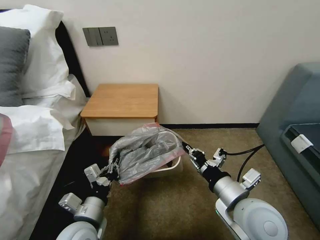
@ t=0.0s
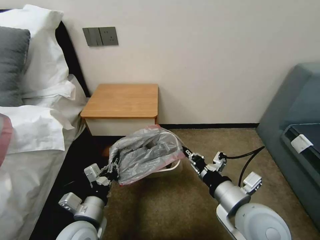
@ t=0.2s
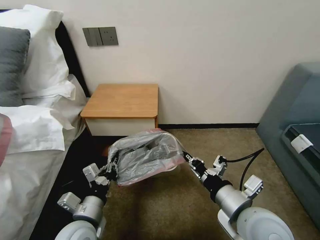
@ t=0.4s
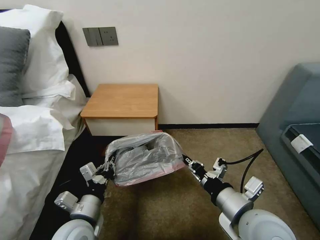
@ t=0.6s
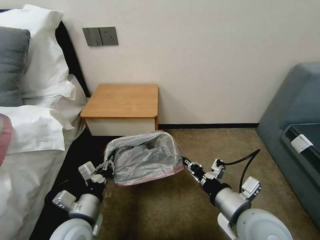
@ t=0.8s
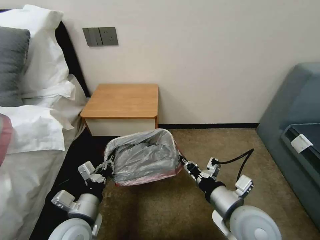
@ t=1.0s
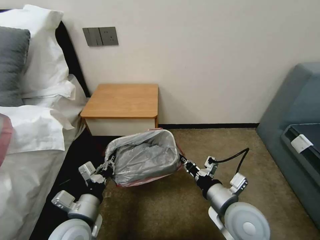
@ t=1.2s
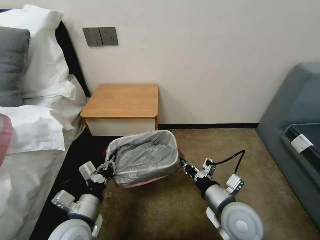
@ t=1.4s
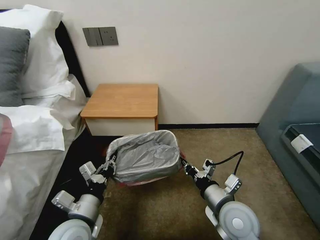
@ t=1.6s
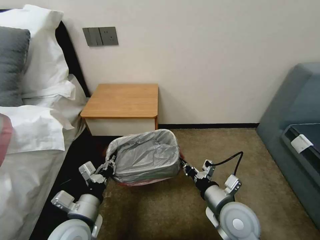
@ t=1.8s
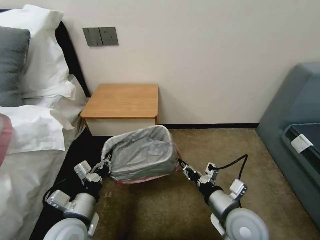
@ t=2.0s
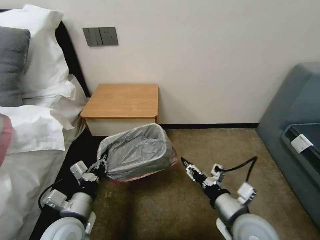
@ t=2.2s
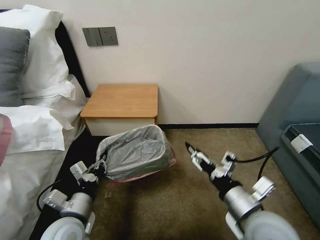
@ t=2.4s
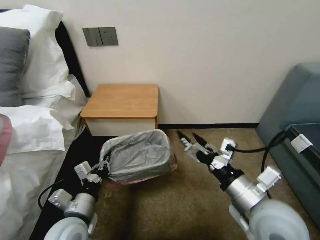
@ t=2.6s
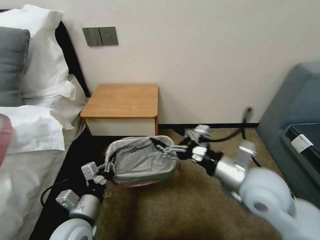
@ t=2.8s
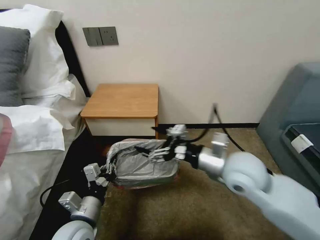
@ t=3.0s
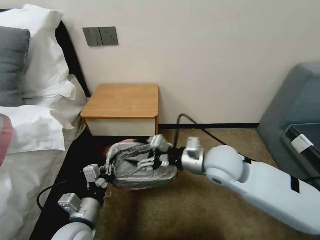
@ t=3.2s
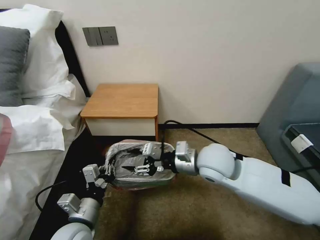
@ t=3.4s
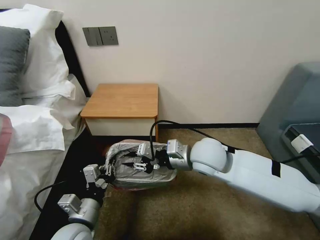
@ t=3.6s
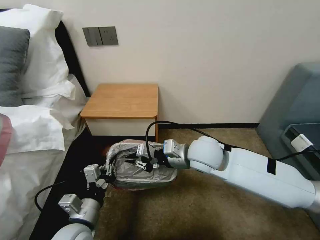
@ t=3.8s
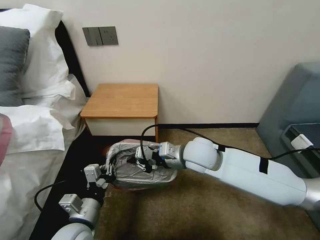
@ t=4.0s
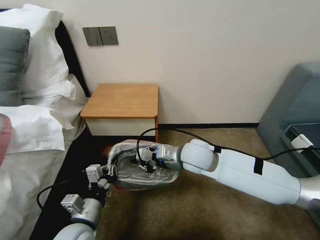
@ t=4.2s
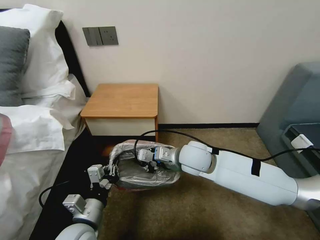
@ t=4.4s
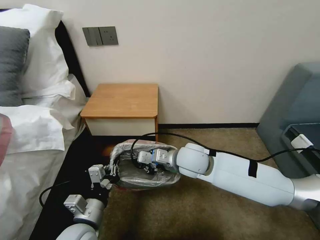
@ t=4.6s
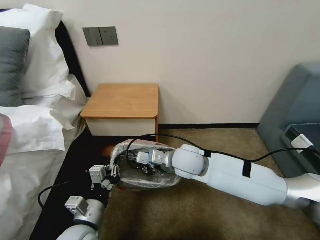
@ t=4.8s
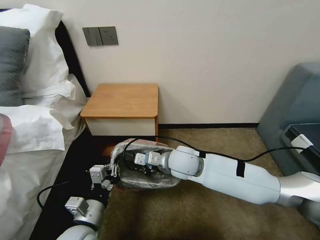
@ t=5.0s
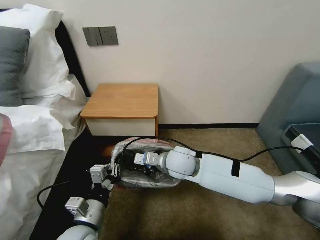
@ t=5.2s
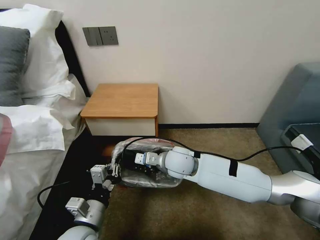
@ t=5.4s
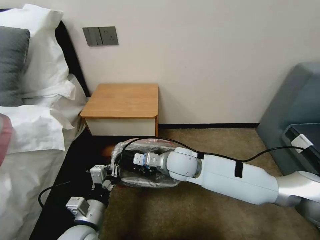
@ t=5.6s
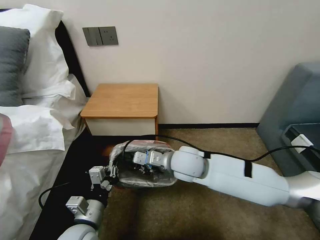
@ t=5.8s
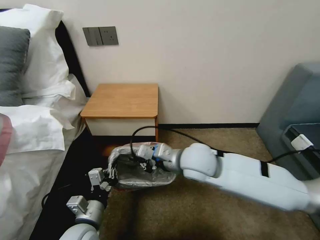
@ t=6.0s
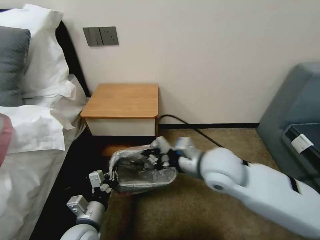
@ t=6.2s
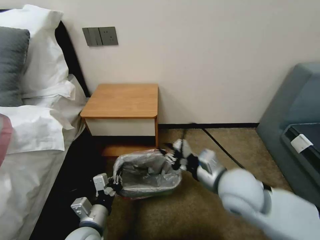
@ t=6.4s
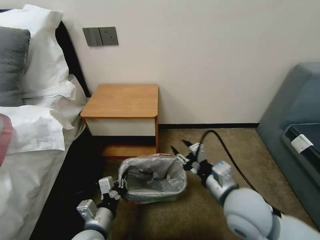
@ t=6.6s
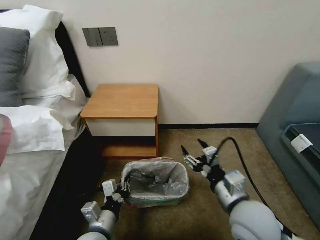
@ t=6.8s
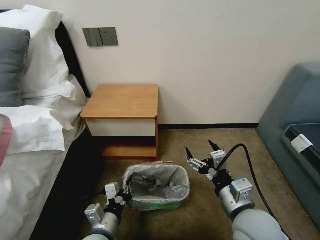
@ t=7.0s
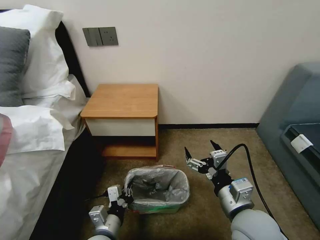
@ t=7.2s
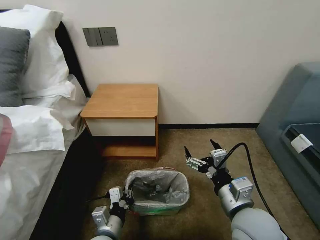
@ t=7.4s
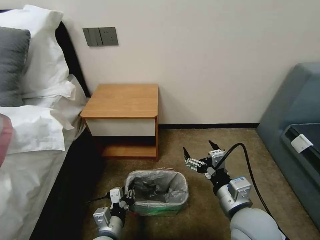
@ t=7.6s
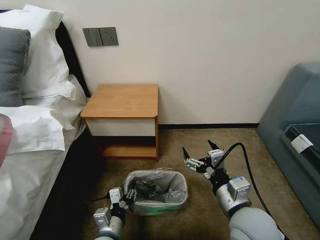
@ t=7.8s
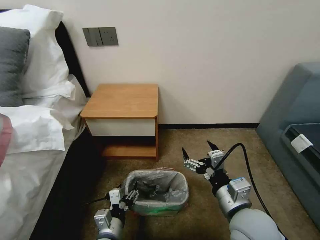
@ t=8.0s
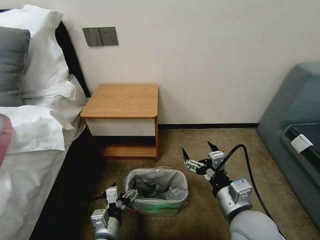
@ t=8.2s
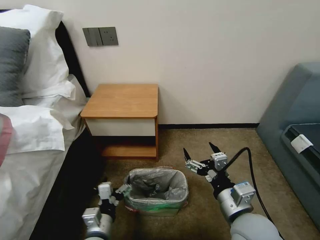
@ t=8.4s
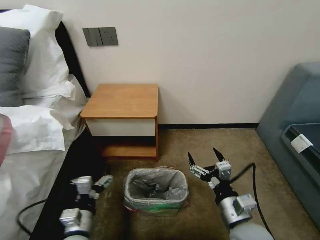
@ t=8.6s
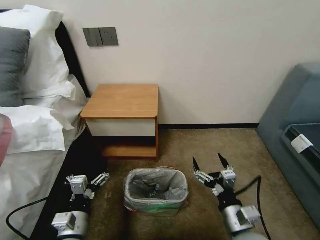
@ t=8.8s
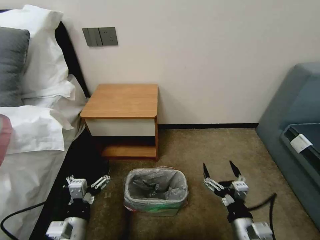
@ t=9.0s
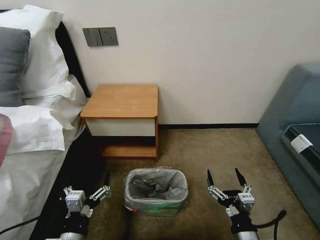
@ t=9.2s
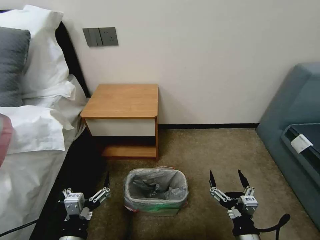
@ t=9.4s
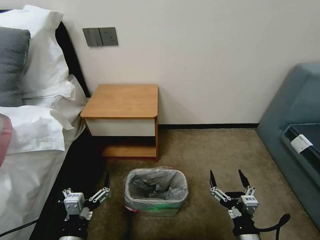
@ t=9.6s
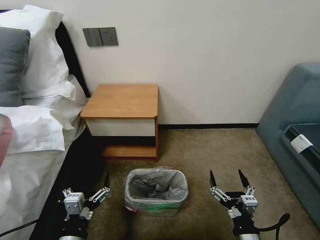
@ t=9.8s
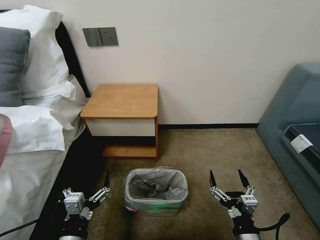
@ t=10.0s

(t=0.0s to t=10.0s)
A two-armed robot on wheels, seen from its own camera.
Task of the whole recording: Pick up the garbage bag from the table and place it over the trash can.
t=0.0s - t=1.4s: The right gripper goes about 5 cm downward.
t=1.4s - t=2.8s: The right gripper shifts some 10 cm upward, and opens its fingers.
t=2.8s - t=4.2s: The right gripper travels forward and to the left by some 15 cm, and closes up.
t=5.8s - t=7.2s: The left gripper moves about 5 cm, while the right gripper travels backward and to the right by approximately 20 cm, and opens up.
t=7.2s - t=8.6s: The left gripper goes about 5 cm to the left, and opens. Meanwhile the right gripper shifts by roughly 5 cm.
t=8.6s - t=10.0s: The right gripper moves backward and downward, some 10 cm. The left gripper shifts roughly 5 cm backward.

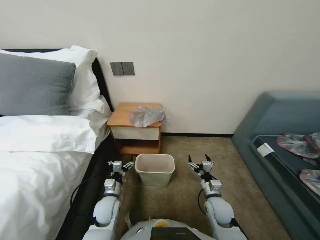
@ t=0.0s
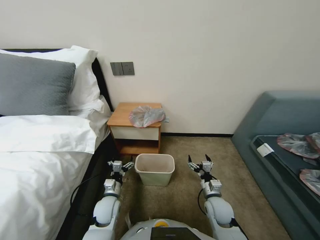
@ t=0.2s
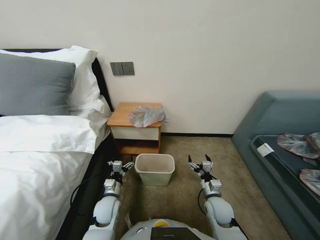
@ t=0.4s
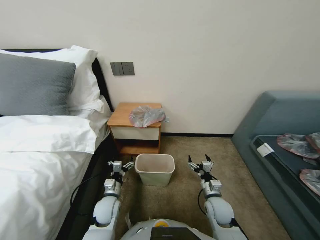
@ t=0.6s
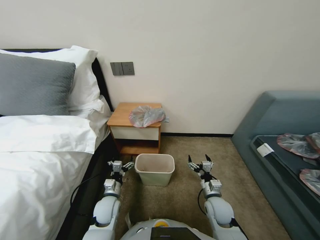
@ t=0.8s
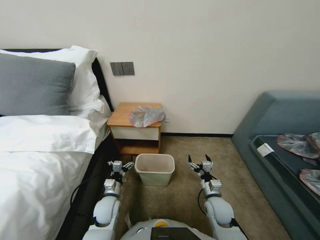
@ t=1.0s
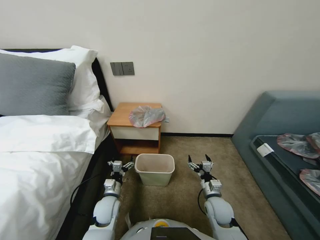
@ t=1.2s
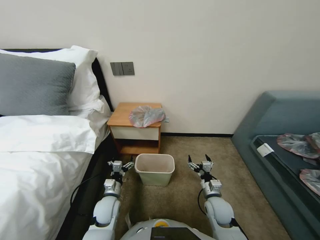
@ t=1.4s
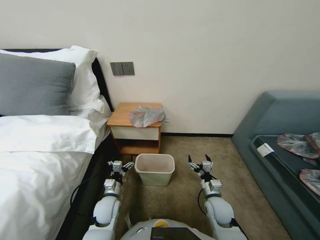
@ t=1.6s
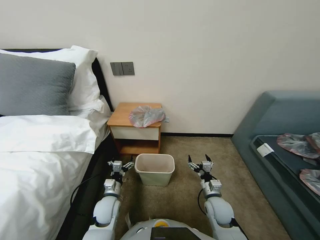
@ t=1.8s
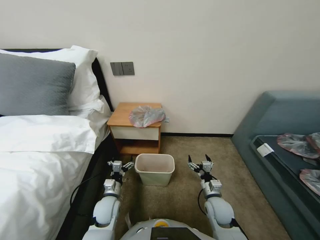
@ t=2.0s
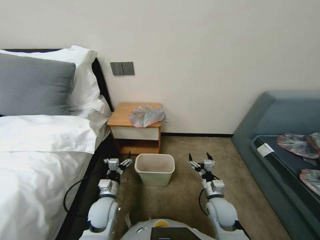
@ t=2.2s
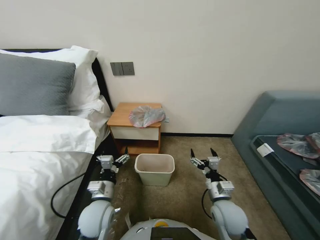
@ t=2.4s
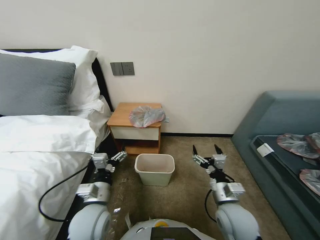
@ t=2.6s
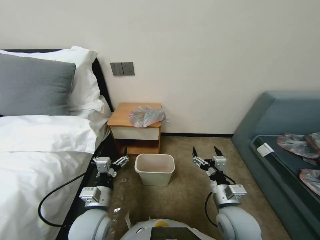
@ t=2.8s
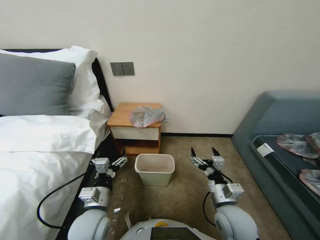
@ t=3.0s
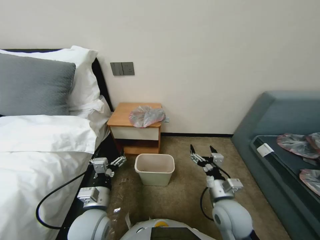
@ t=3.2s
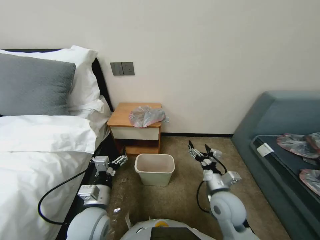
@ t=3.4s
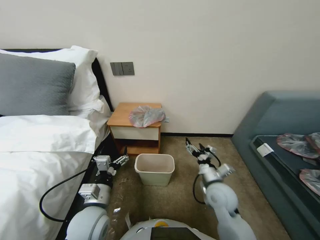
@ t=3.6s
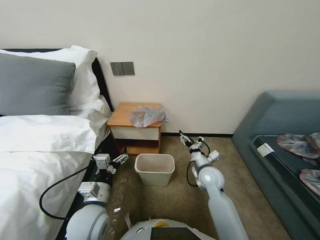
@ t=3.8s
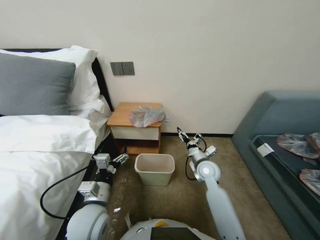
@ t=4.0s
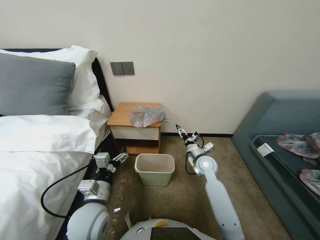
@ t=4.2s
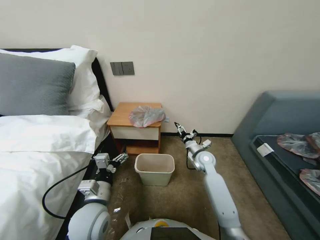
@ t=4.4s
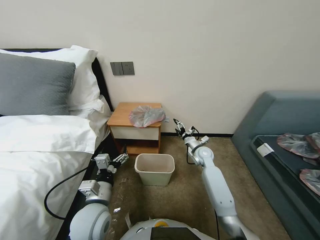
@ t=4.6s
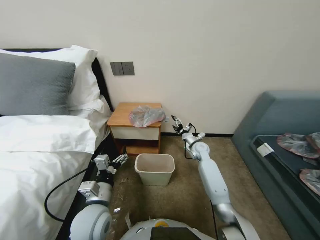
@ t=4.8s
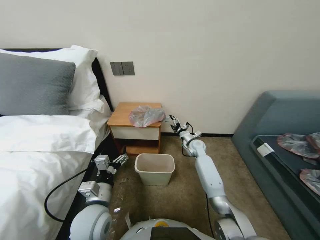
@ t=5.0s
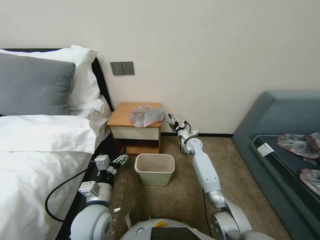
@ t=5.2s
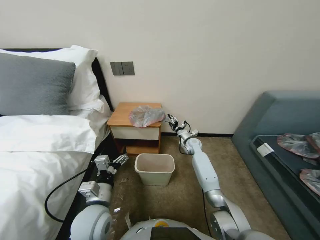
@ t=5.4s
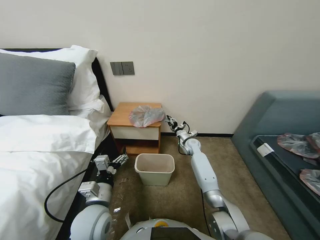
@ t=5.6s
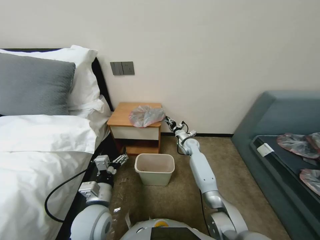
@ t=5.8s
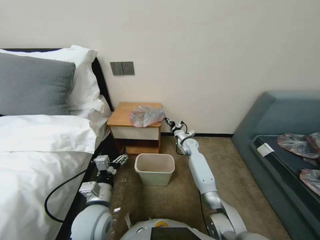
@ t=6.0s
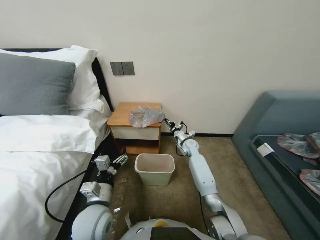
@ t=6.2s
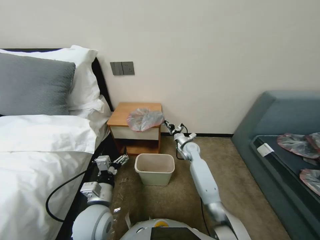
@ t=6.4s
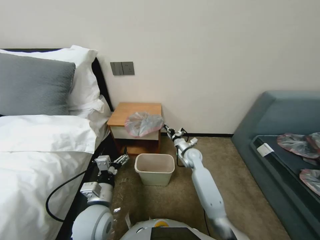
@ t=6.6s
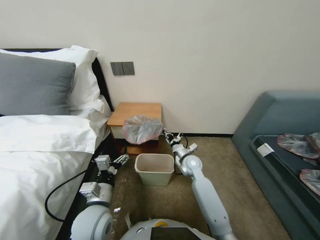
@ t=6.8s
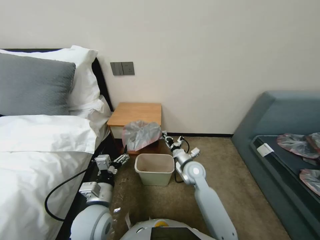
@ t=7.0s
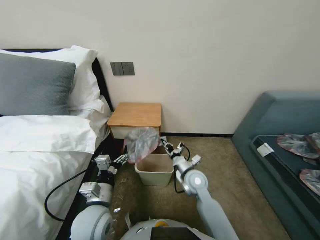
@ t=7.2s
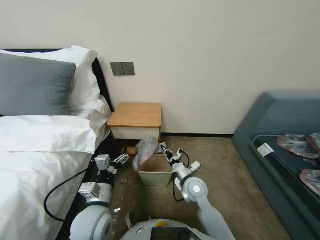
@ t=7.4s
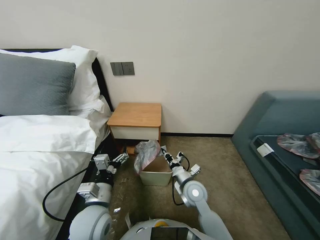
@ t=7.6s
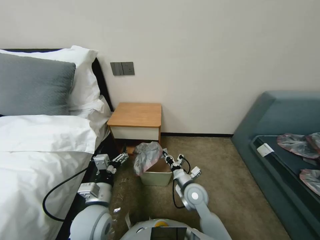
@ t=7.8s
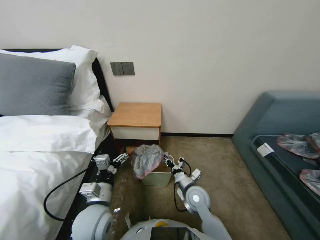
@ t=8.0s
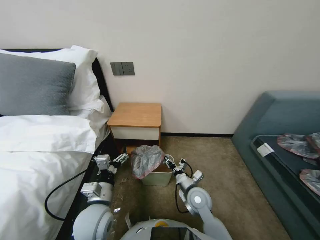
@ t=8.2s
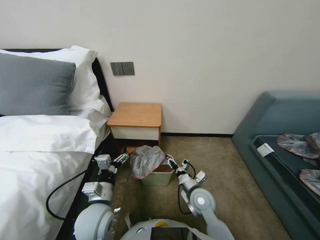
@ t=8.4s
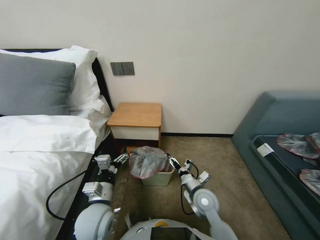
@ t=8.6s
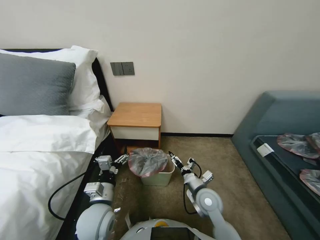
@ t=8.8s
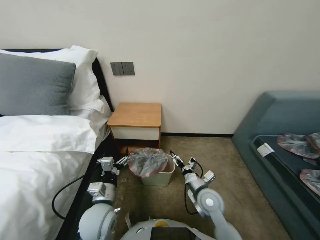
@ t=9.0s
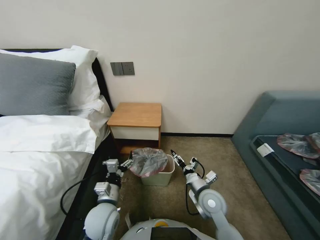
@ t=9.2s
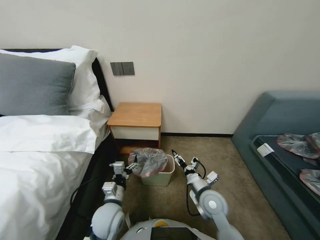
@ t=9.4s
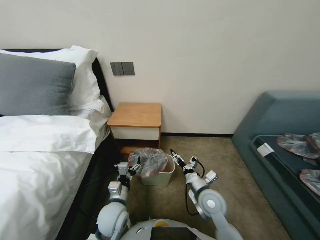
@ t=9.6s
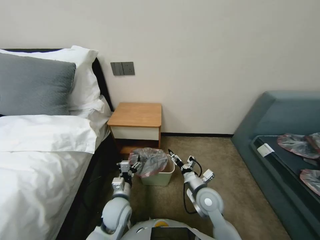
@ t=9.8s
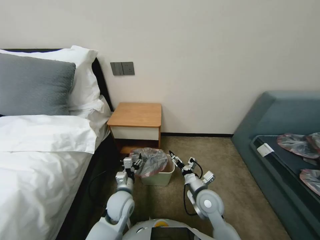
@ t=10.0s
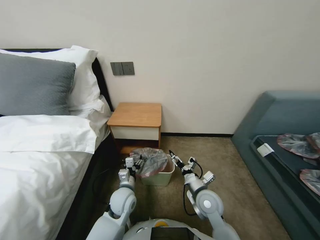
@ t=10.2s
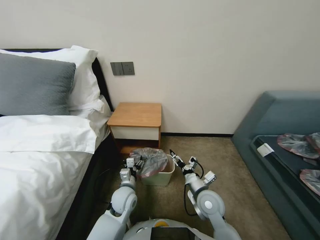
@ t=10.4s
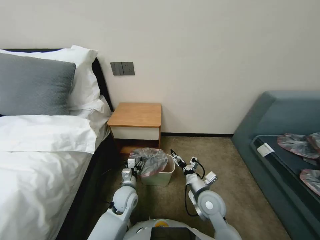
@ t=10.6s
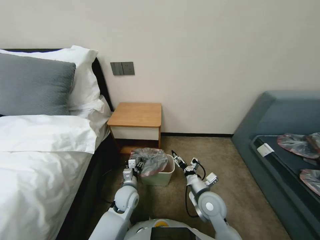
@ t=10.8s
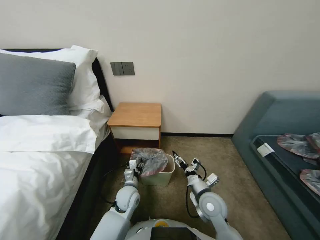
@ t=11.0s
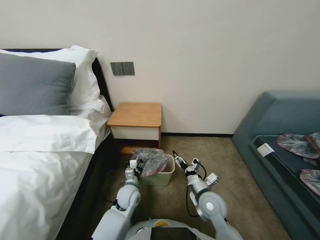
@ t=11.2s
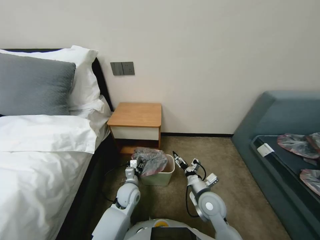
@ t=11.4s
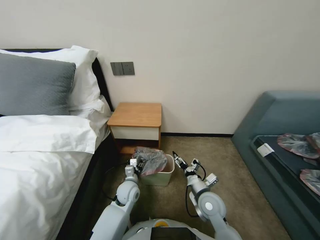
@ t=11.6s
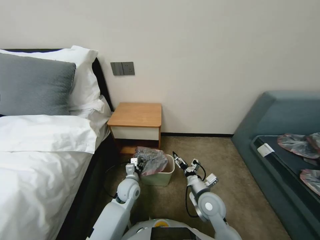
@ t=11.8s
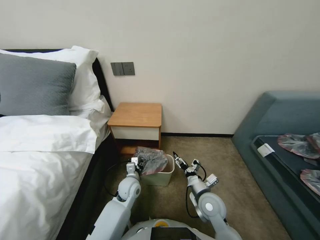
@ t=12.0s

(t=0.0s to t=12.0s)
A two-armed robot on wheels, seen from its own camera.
Task of the whole recording: Pick up the garbage bag from the table and place it over the trash can.
t=1.6s - t=3.0s: The two grippers go roughly 15 cm upward and backward.
t=3.0s - t=4.4s: The right gripper shifts roughly 25 cm forward.
t=4.4s - t=6.0s: The right gripper heads forward, covering some 10 cm, and closes up.
t=6.0s - t=7.6s: The right gripper is displaced backward by about 25 cm.
t=7.6s - t=9.0s: The right gripper shifts by about 5 cm, and opens.
t=9.0s - t=10.4s: The left gripper is displaced downward and forward by roughly 10 cm.
t=10.4s - t=12.0s: The left gripper moves roughly 5 cm.
